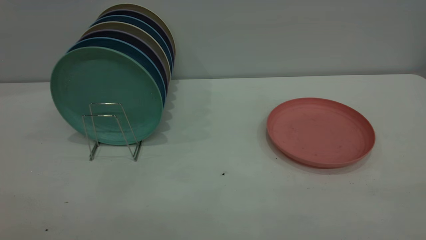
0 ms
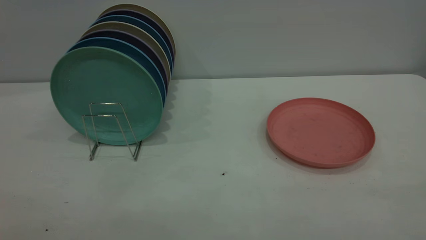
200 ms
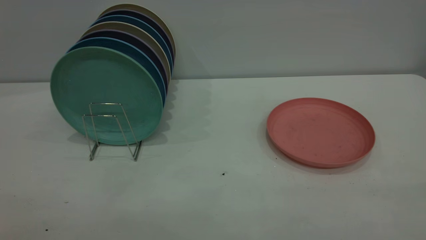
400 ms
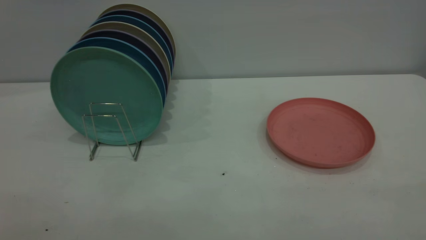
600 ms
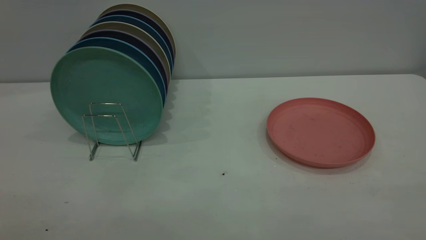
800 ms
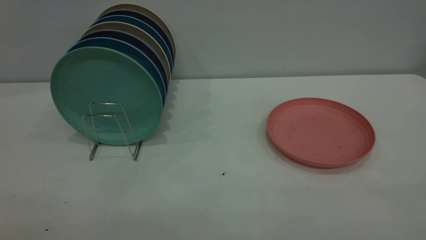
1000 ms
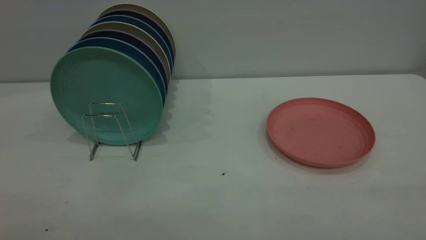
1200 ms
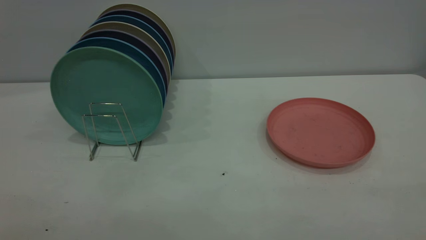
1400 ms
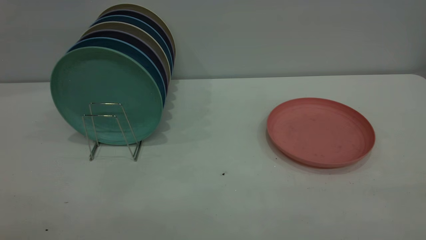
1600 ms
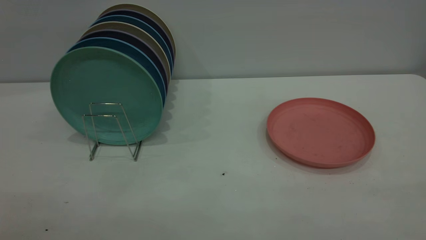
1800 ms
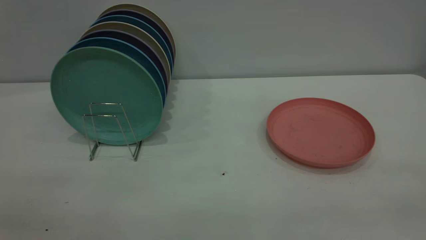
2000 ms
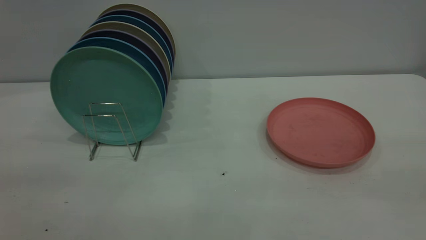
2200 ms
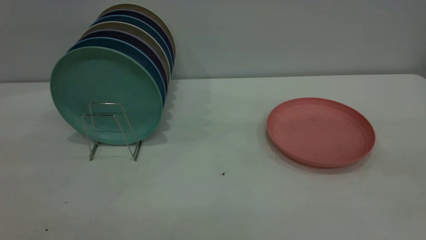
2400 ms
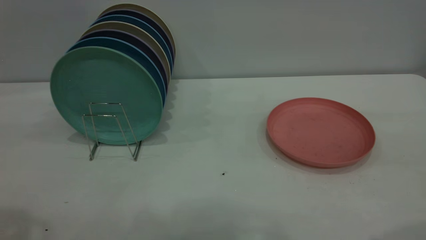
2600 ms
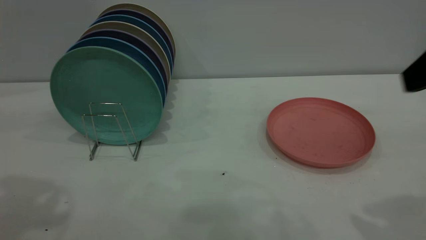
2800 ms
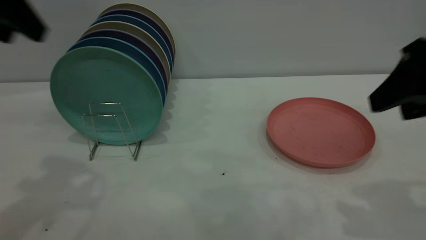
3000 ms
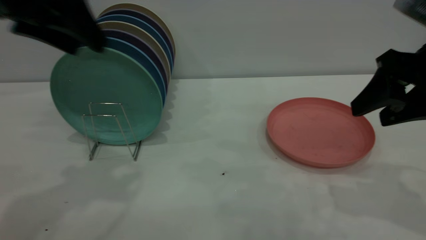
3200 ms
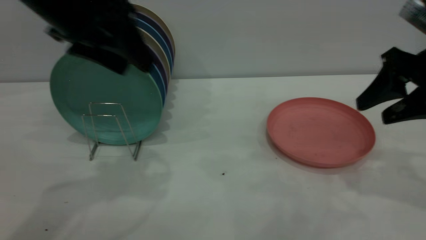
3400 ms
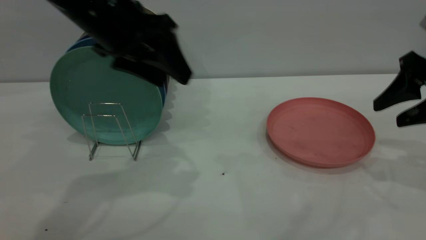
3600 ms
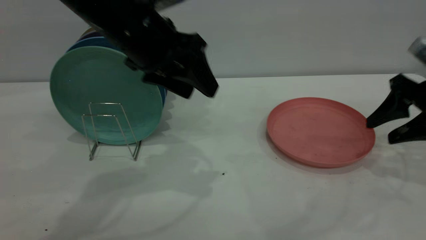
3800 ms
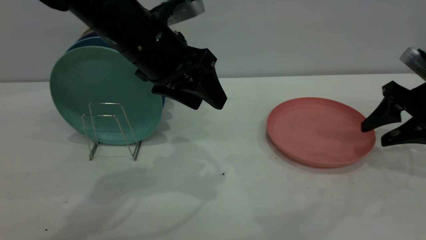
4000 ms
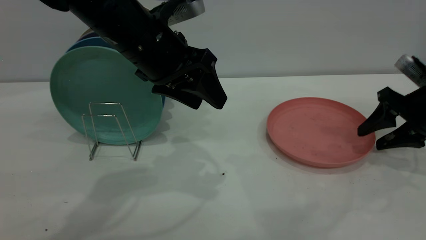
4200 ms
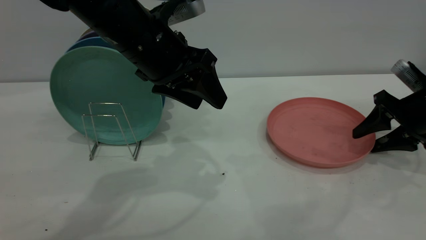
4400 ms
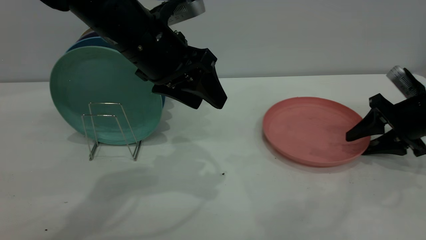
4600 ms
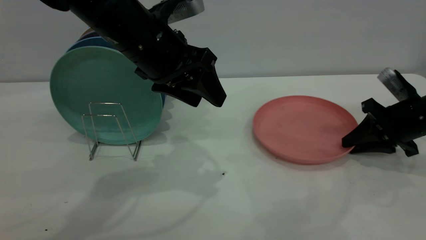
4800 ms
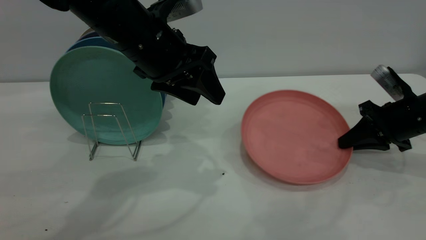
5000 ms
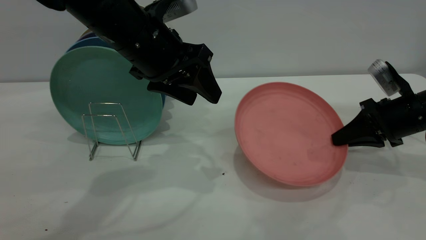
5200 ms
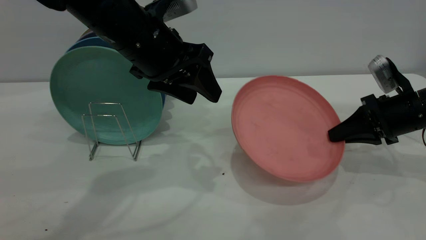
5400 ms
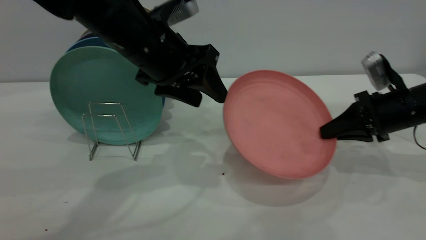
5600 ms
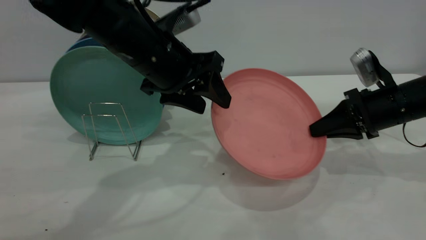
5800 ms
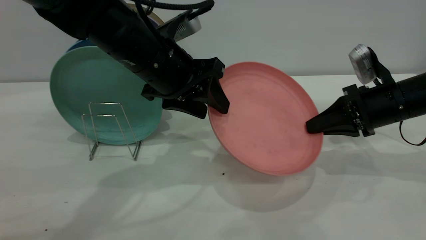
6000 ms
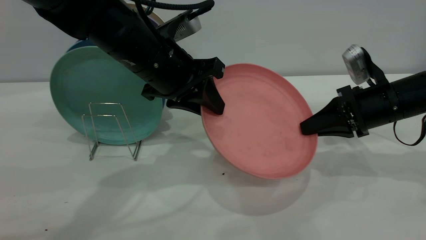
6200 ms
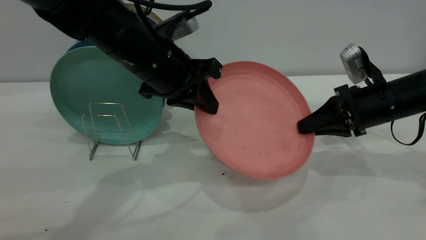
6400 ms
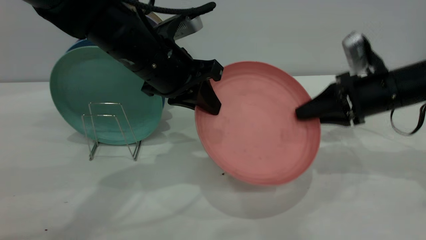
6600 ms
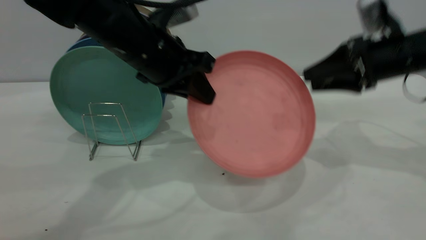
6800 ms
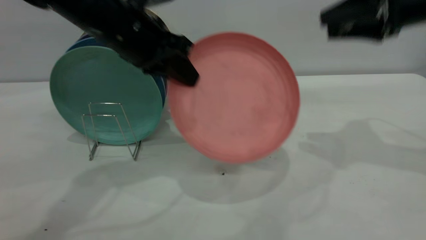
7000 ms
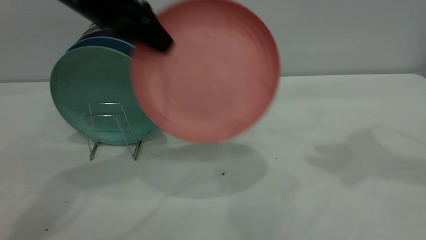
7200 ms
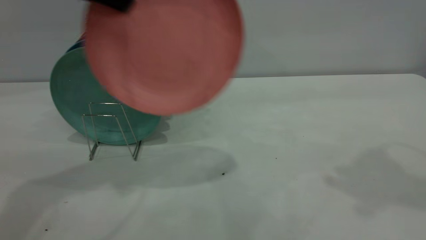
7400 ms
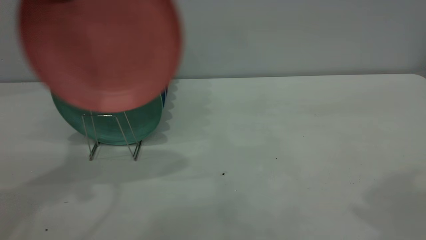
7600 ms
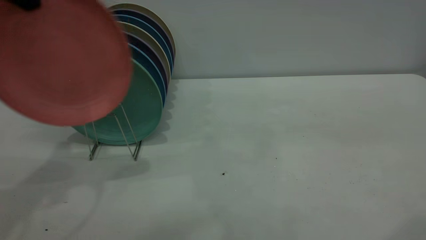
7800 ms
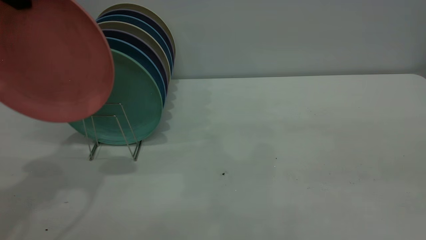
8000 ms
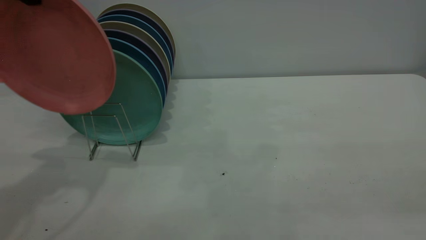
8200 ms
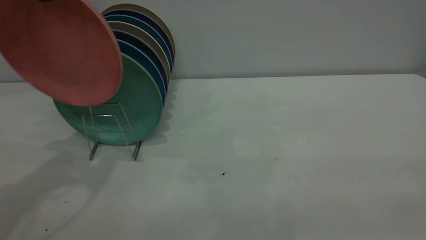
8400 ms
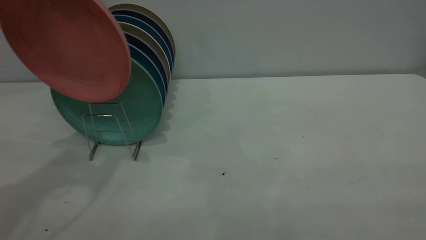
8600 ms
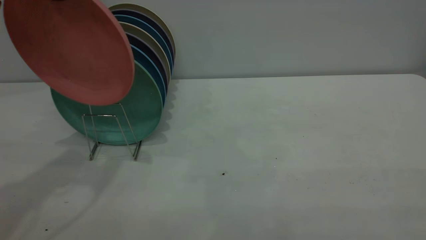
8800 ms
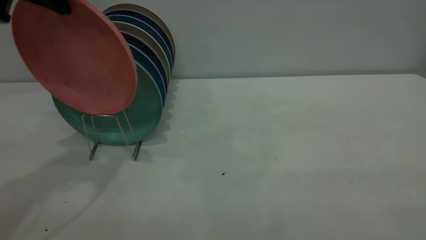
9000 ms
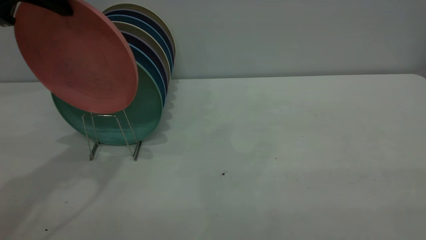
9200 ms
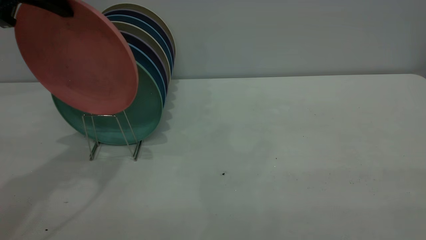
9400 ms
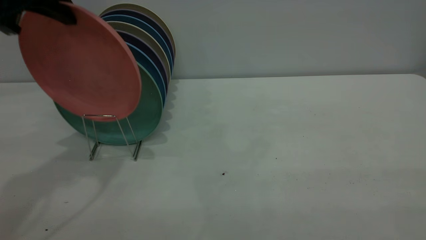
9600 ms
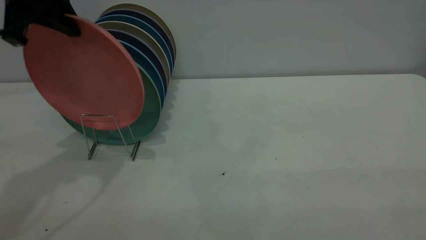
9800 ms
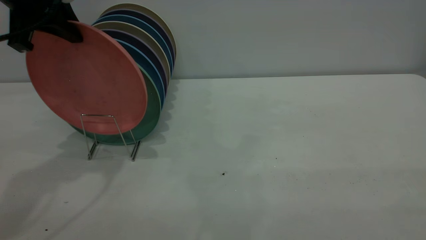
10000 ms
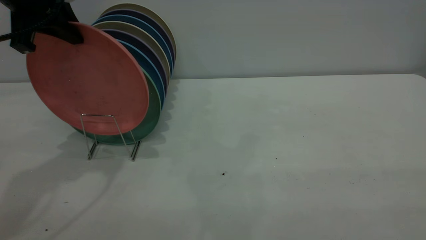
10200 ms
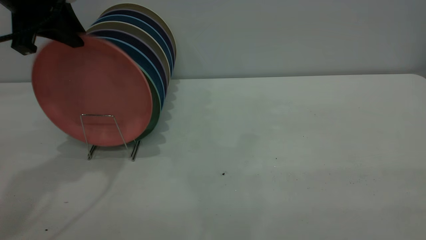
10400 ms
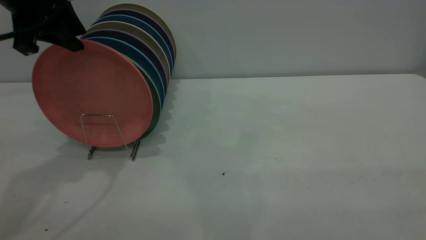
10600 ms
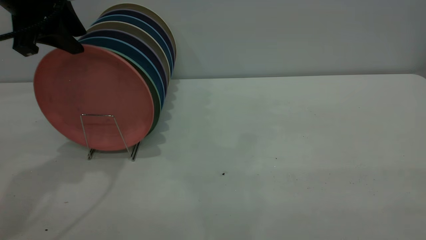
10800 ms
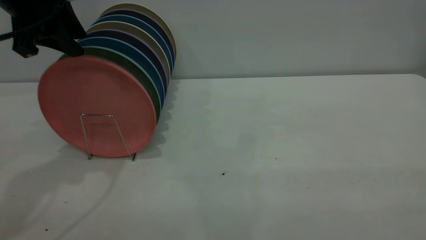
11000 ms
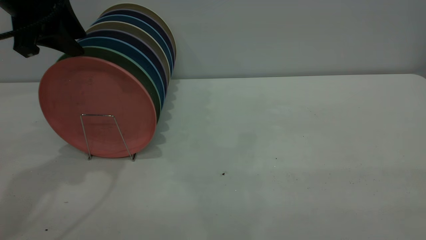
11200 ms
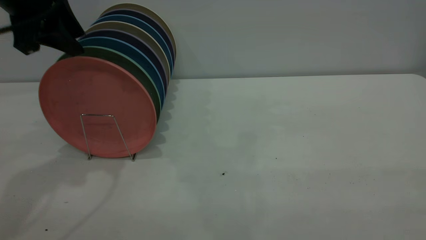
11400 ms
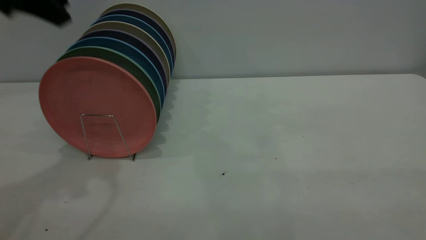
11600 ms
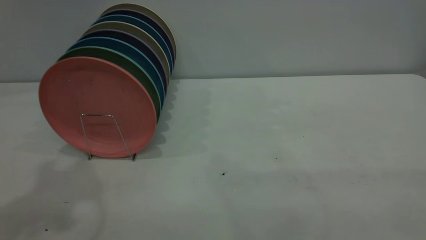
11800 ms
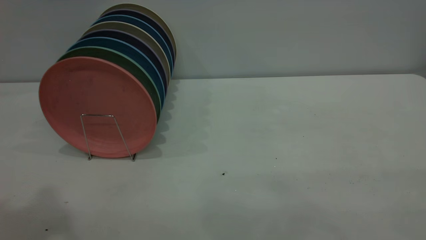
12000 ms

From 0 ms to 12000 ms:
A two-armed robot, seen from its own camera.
Task of the whole recording: the right gripper grasp the pink plate, the right gripper pass the pink plate to the left gripper, and the left gripper place the pink plate on the plate rack.
Step, from 0 ms to 5400 ms: Pick up the plate with the right gripper.
Step, from 5600 ms to 6800 ms: Pass the plate from the right gripper to the left gripper.
Step, from 7000 ms to 11400 ms: Place the plate on the shelf.
From 0 ms to 1600 ms: The two grippers keep their place.
From 1600 ms to 3000 ms: Both grippers move forward, some 30 cm. The right gripper opens.
From 3000 ms to 4400 ms: The right gripper heads downward, forward and to the right, covering some 25 cm, while the left gripper shifts about 20 cm to the right and downward.
From 4400 ms to 6000 ms: The right gripper goes about 5 cm to the left, and closes.
From 6000 ms to 7600 ms: The left gripper is displaced upward and to the left by roughly 25 cm, and closes up. The right gripper shifts approximately 35 cm upward and backward, and opens up.
From 7600 ms to 9000 ms: The right gripper travels backward by about 20 cm.
From 9000 ms to 10400 ms: There are only small adjustments of the grippers.
From 10400 ms to 12000 ms: The left gripper goes roughly 25 cm backward and upward.

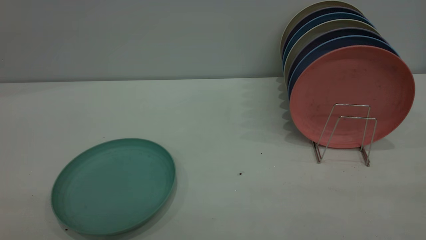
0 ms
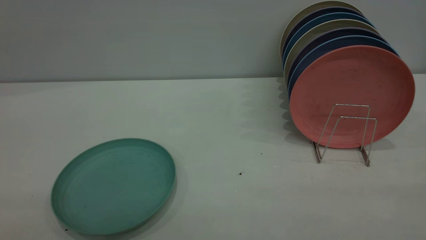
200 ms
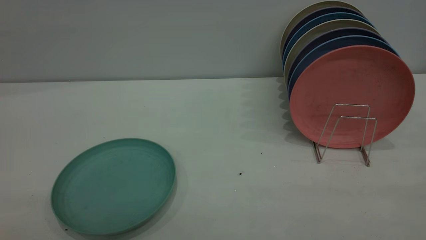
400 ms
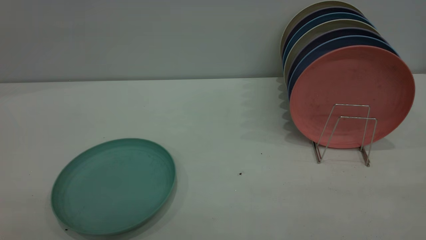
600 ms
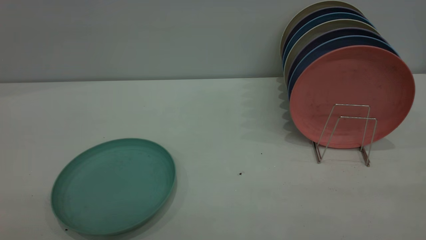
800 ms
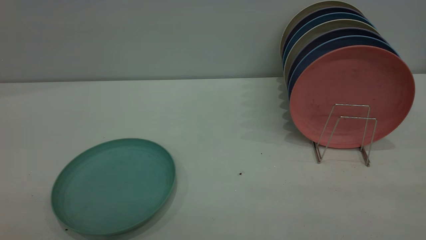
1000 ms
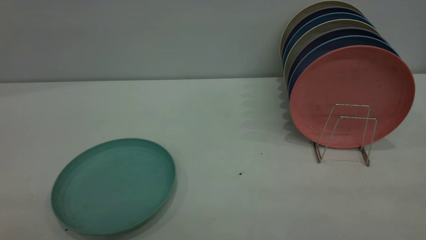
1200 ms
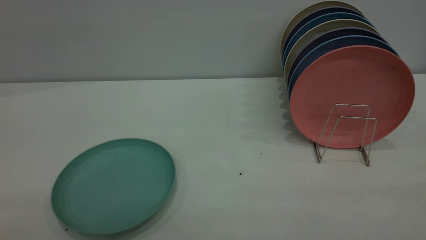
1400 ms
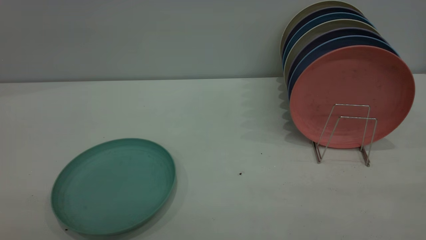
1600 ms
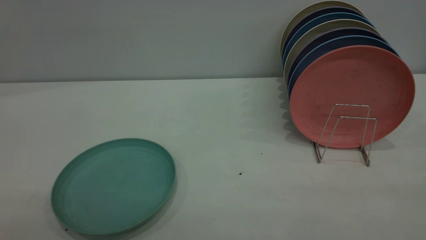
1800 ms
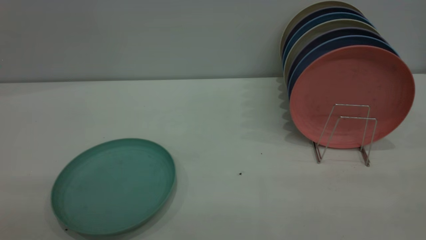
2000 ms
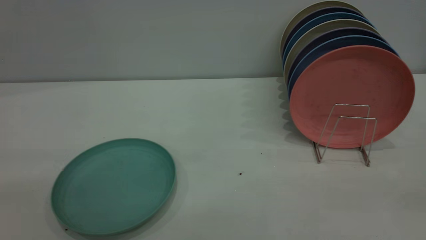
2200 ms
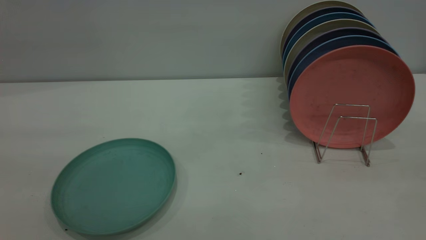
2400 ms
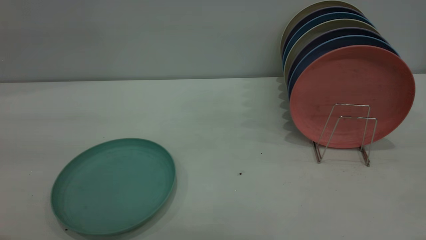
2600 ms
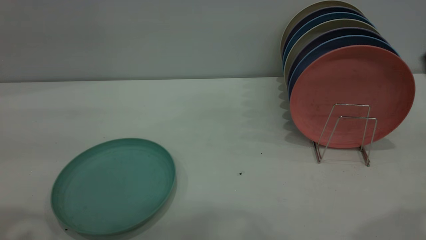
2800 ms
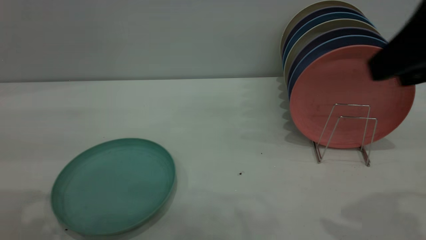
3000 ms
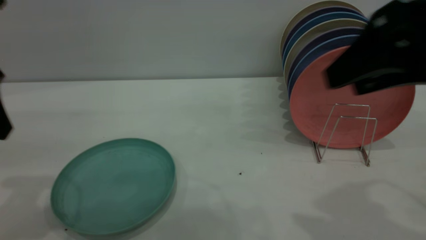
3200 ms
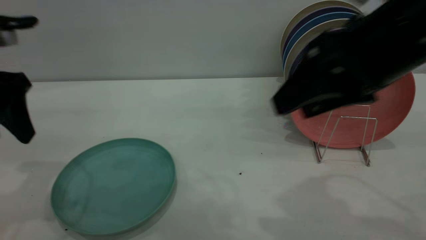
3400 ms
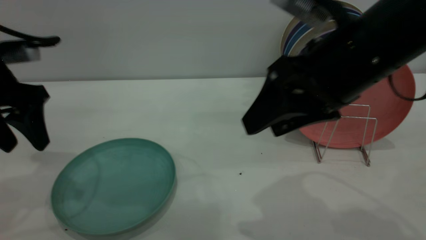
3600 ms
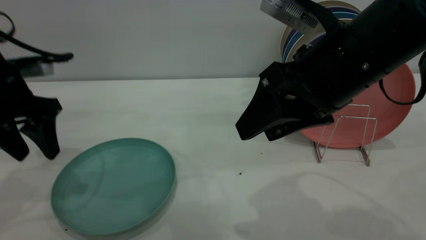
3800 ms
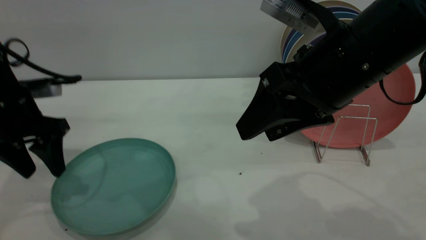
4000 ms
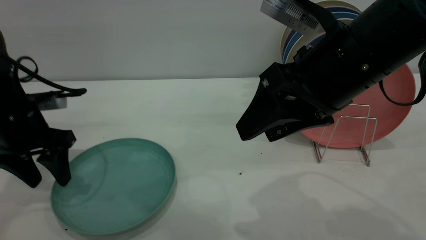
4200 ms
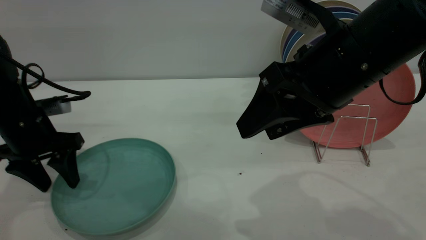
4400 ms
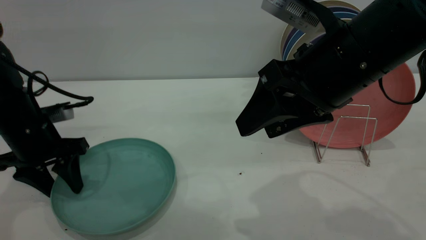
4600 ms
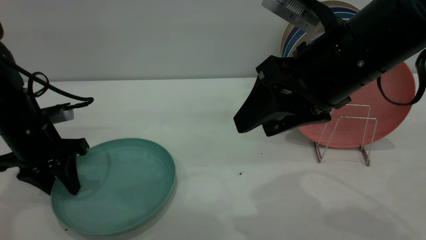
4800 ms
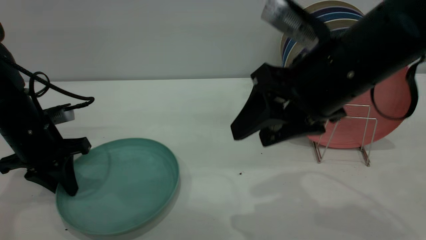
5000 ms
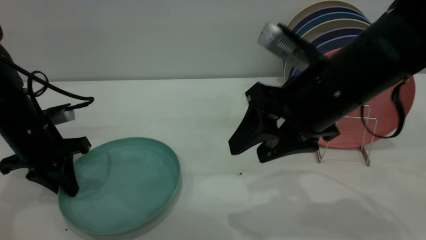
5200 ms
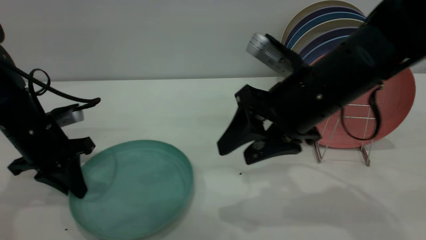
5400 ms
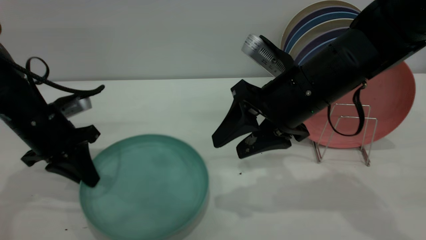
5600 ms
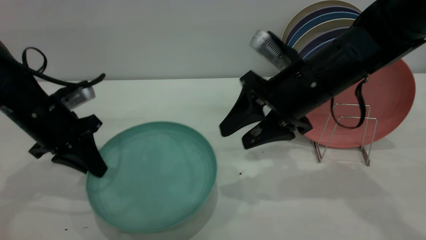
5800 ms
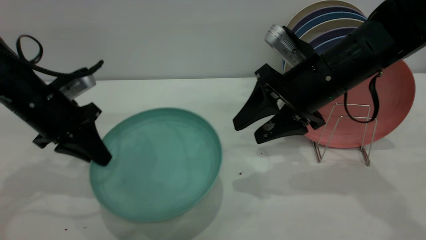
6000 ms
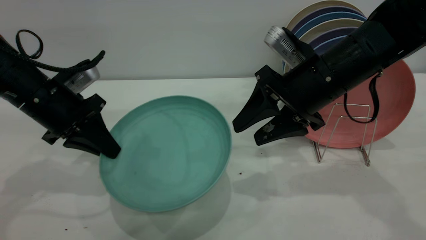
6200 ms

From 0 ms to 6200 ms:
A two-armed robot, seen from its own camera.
Task of the whole recording: the left gripper grasp the green plate, the left gripper pass the green plate to the right gripper, and the right gripper place the green plate on the plate rack.
Step, from 0 ms to 5800 ms: Pick up the plate with the left gripper.
From 0 ms to 1600 ms: Both grippers stay about where they are.
From 1600 ms to 3200 ms: The right gripper is displaced forward by some 25 cm.
From 3200 ms to 4600 ms: The left gripper goes approximately 20 cm downward and forward. The right gripper goes roughly 10 cm to the left.
From 4600 ms to 6200 ms: The right gripper heads forward and downward, covering approximately 10 cm. Meanwhile the left gripper moves roughly 5 cm, and closes up.
